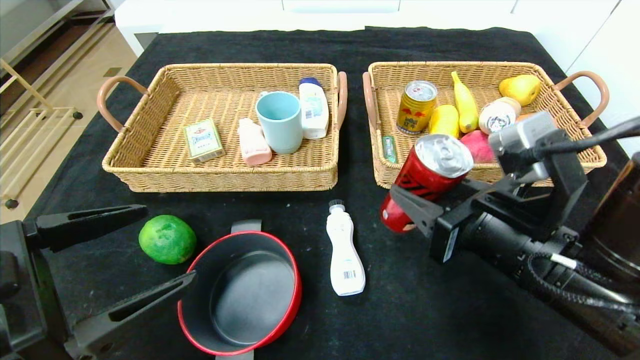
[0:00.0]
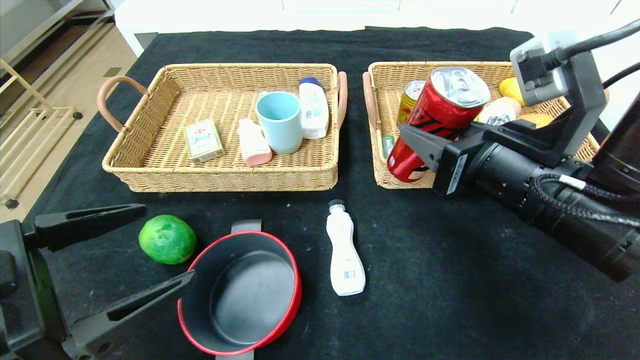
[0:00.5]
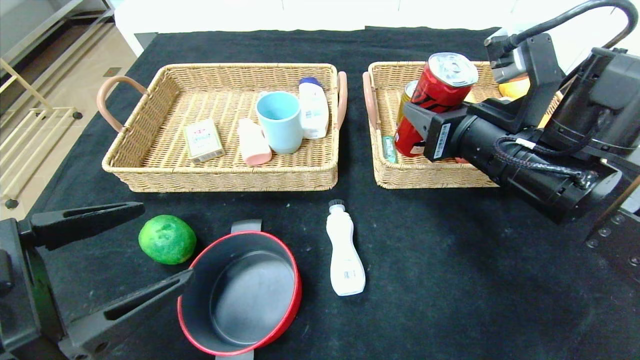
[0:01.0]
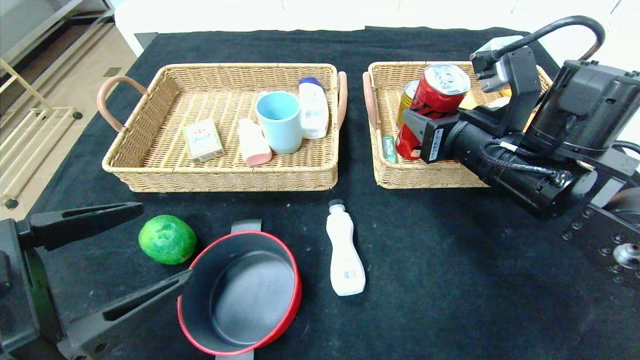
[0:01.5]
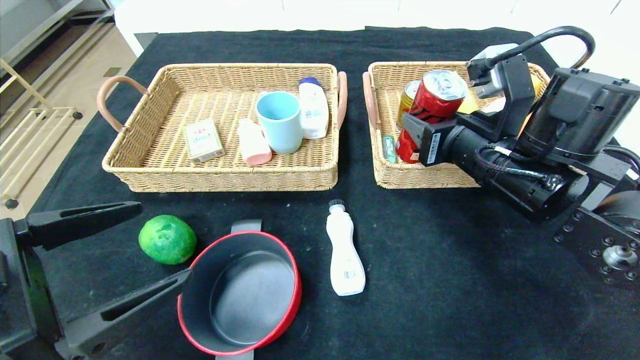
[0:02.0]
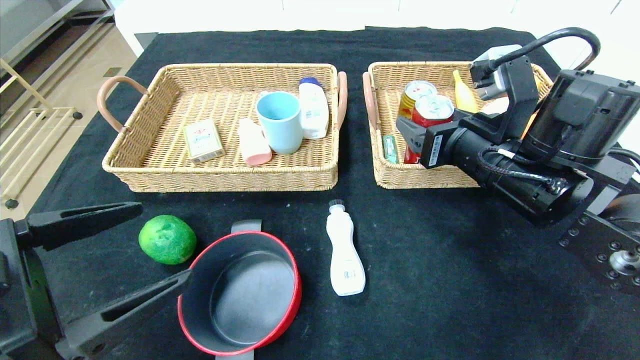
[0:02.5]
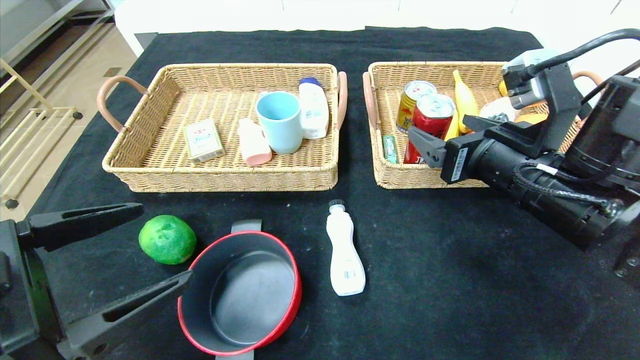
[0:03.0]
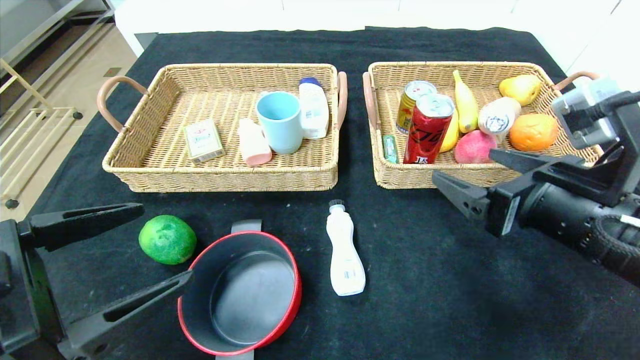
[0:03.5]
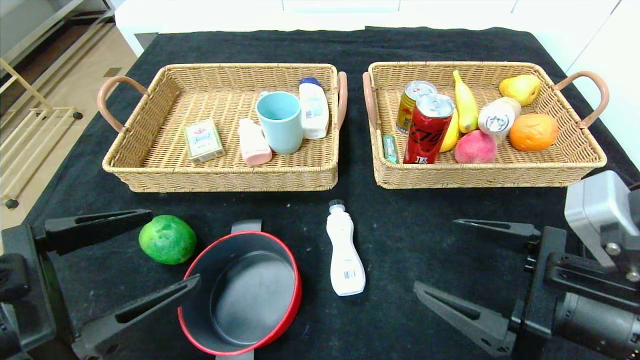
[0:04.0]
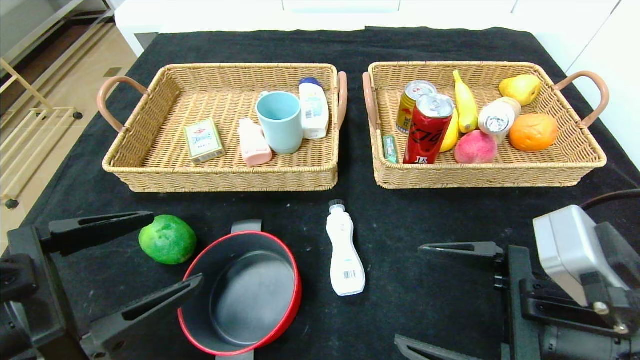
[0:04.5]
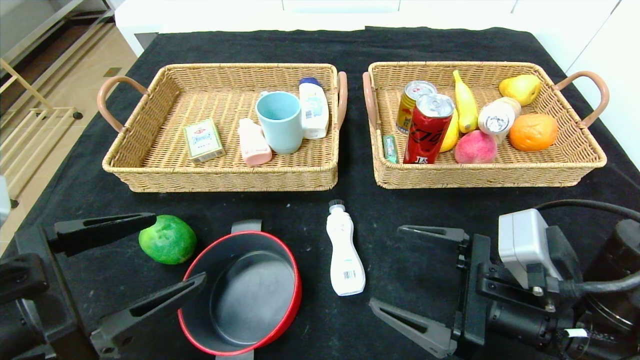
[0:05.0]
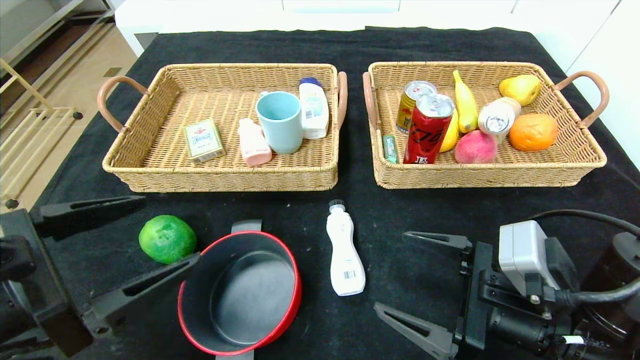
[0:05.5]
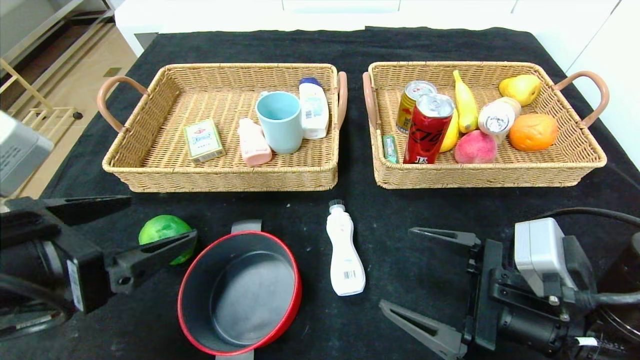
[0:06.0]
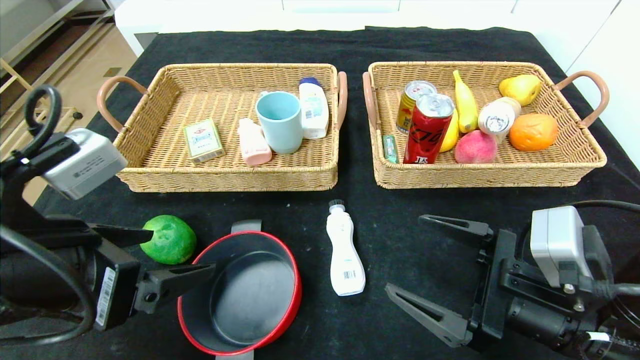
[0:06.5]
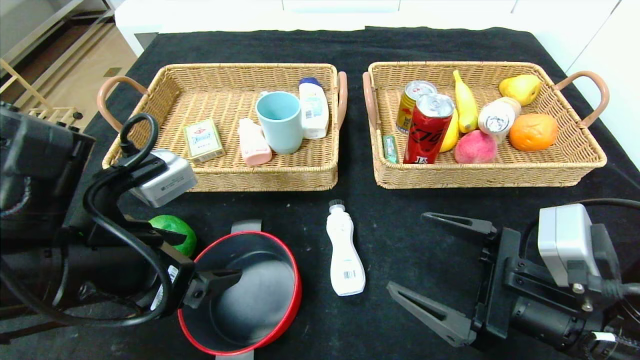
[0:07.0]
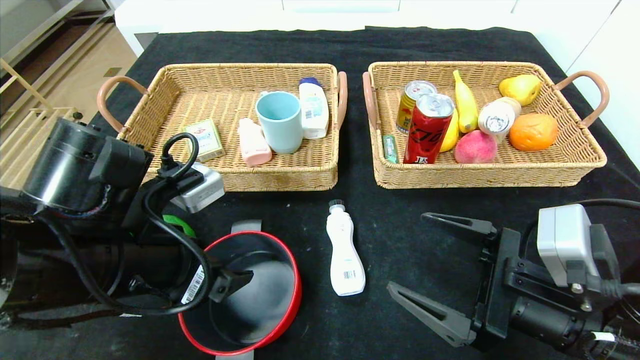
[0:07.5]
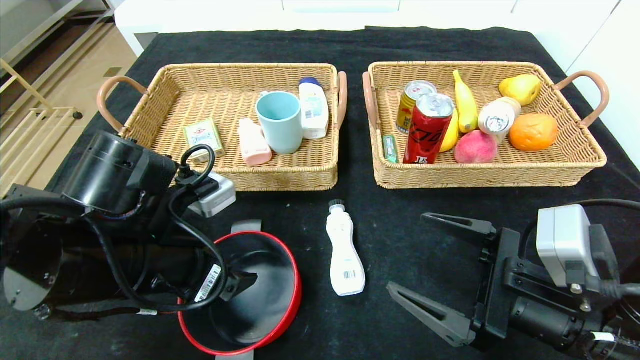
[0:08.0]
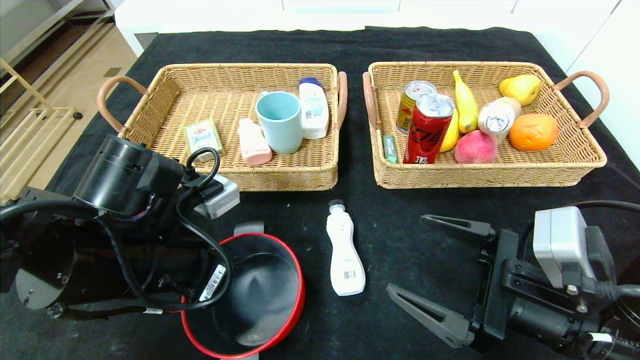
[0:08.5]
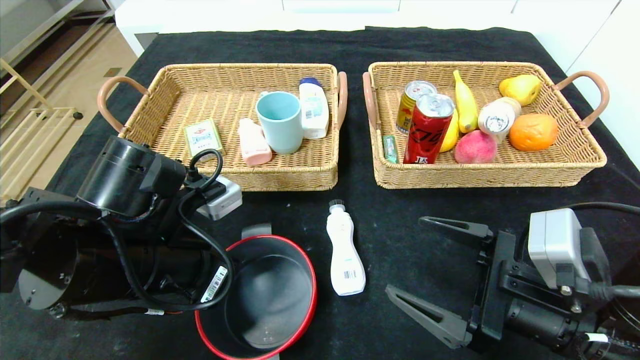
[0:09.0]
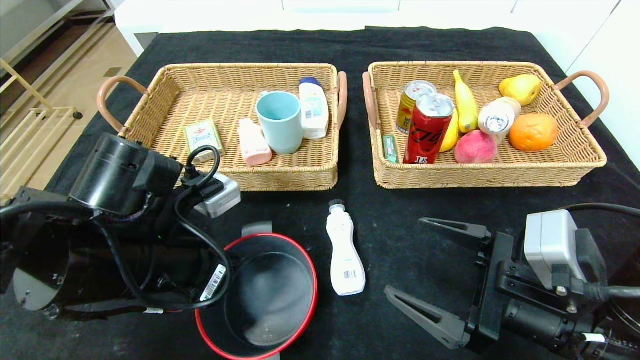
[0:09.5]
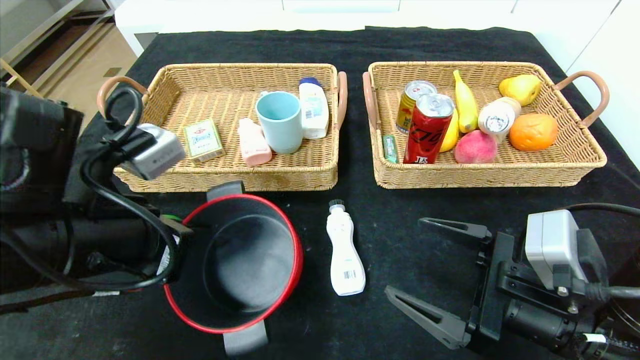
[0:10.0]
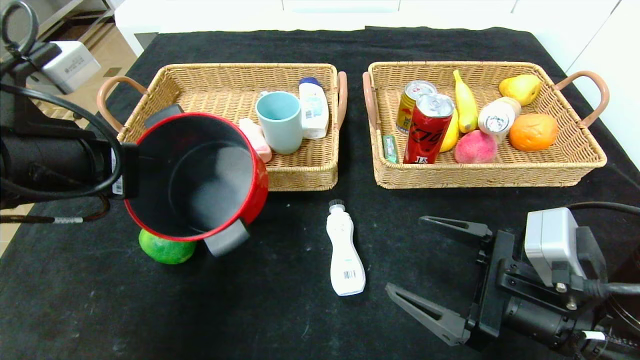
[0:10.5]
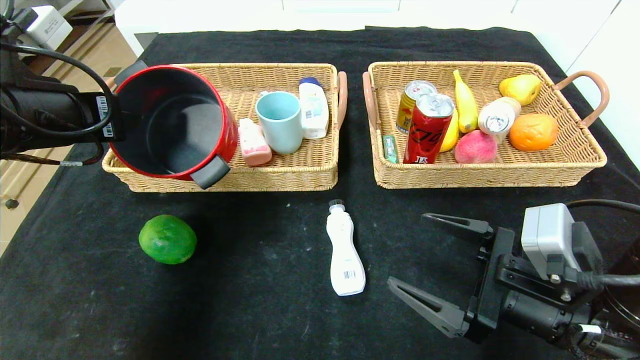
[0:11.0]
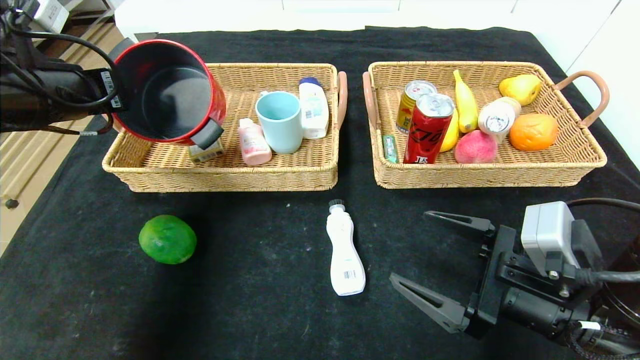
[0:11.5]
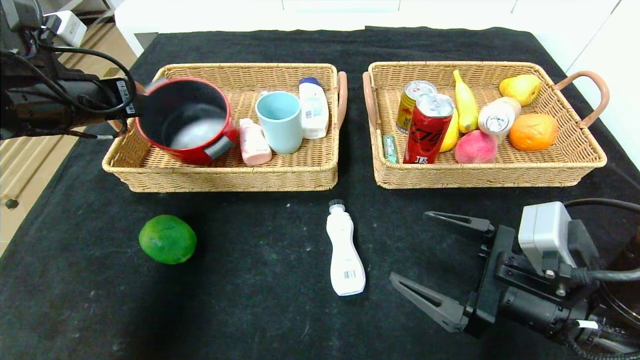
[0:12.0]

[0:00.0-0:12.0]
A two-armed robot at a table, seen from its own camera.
Step, 0:00.0 to 0:02.0: Grasp the canned cola and put it in the right basket.
0:00.0 to 0:02.0: The right gripper heads forward, covering roughly 10 cm.
0:02.0 to 0:04.0: The right gripper moves backward, approximately 15 cm, and opens up.
0:04.0 to 0:06.0: The right gripper moves some 5 cm.
0:06.0 to 0:08.0: The left gripper shifts about 10 cm forward and to the right.
0:08.0 to 0:10.0: The left gripper shifts by some 5 cm, and closes its fingers.
0:10.0 to 0:12.0: The left gripper shifts some 20 cm forward, to the left and upward.

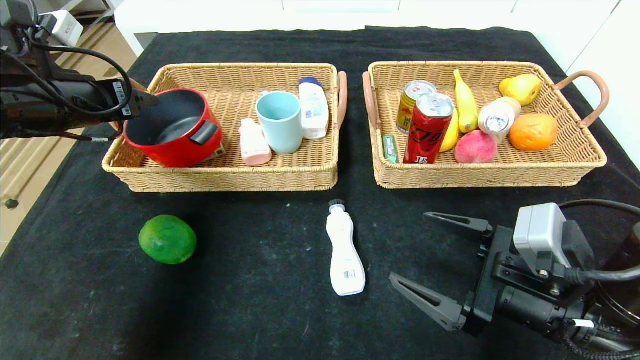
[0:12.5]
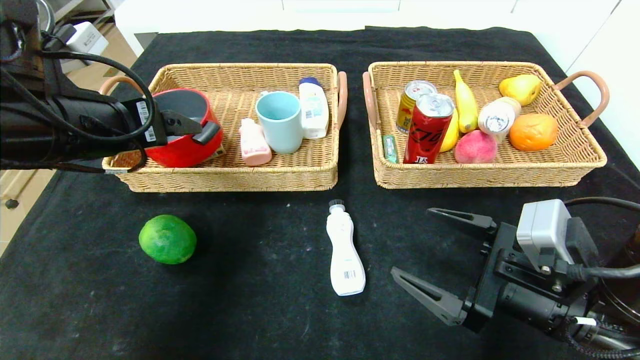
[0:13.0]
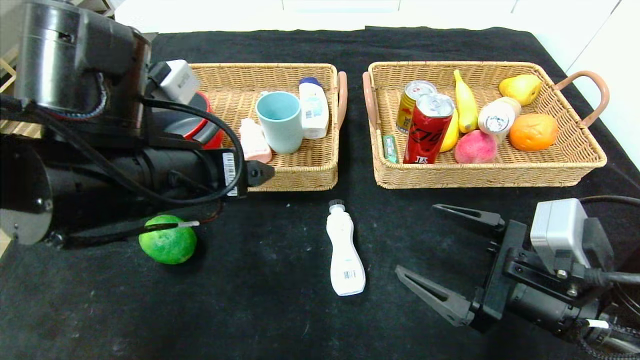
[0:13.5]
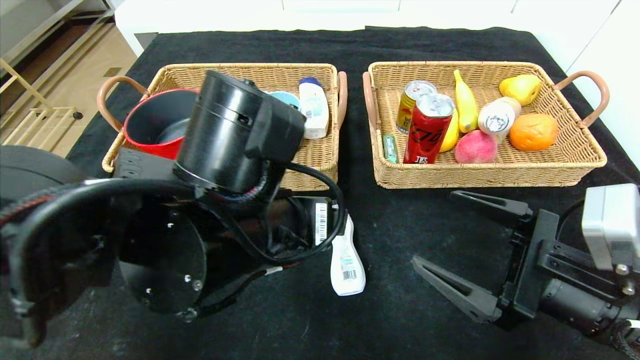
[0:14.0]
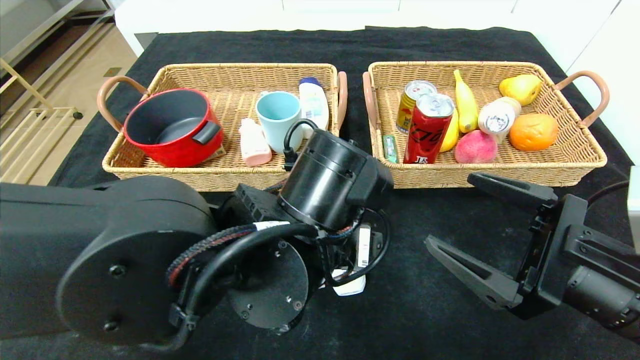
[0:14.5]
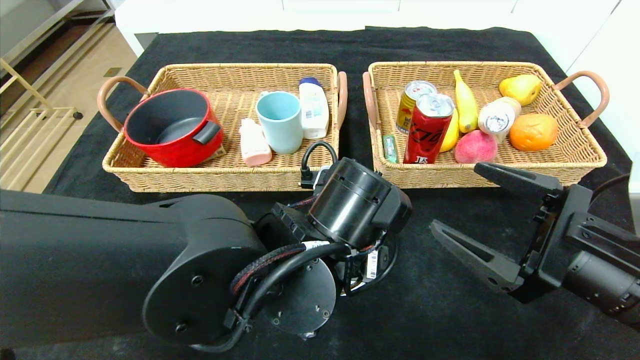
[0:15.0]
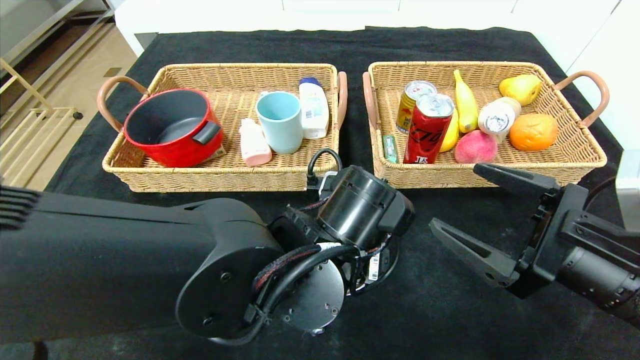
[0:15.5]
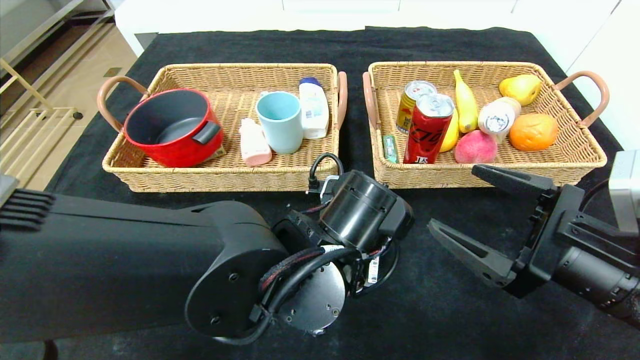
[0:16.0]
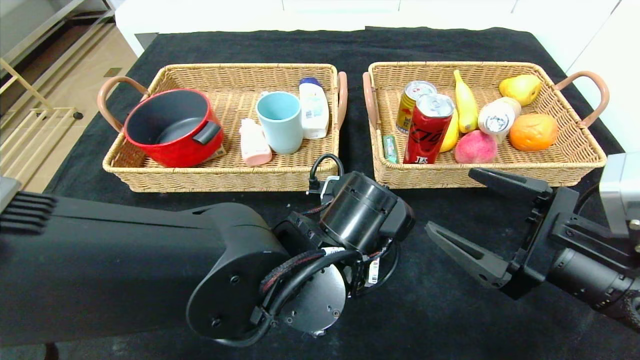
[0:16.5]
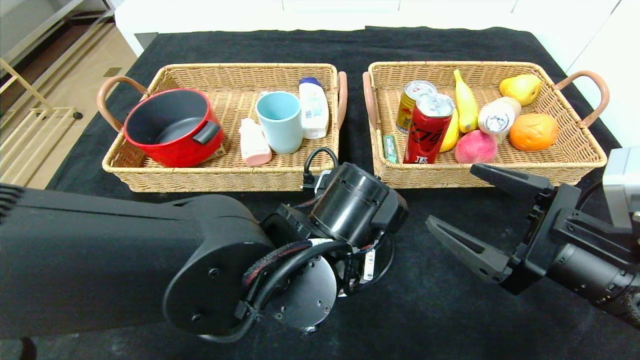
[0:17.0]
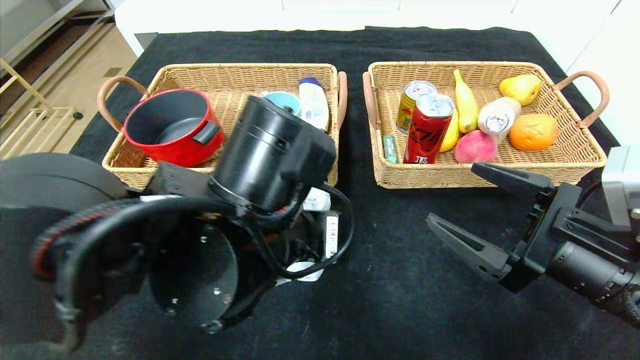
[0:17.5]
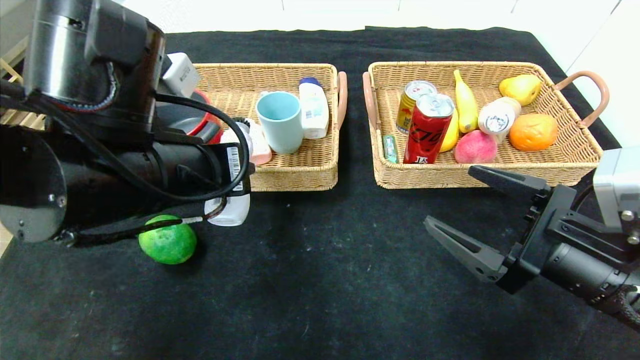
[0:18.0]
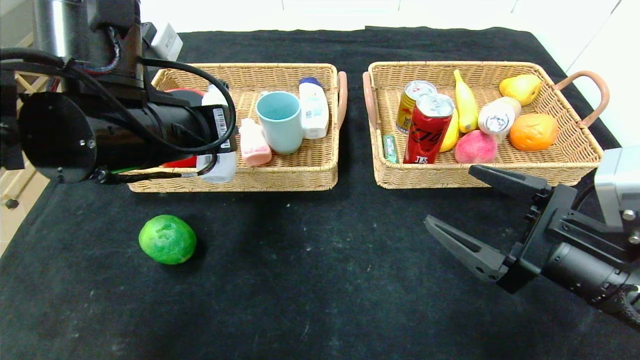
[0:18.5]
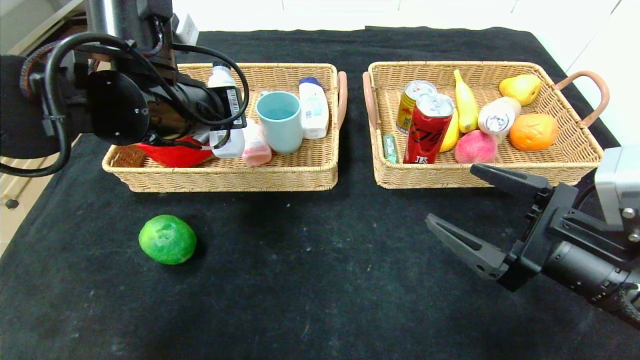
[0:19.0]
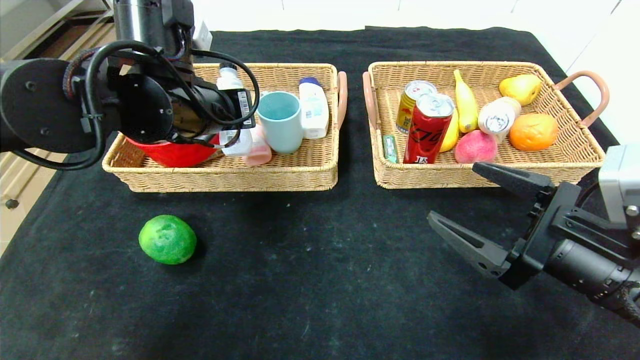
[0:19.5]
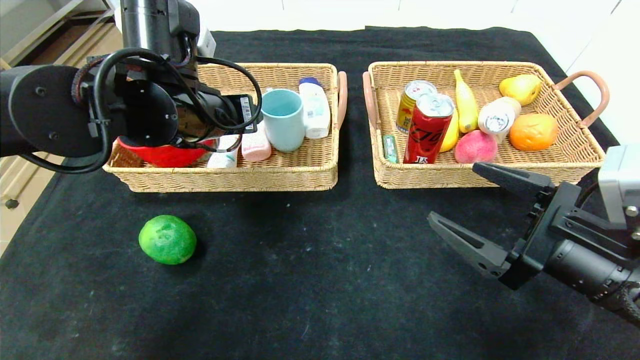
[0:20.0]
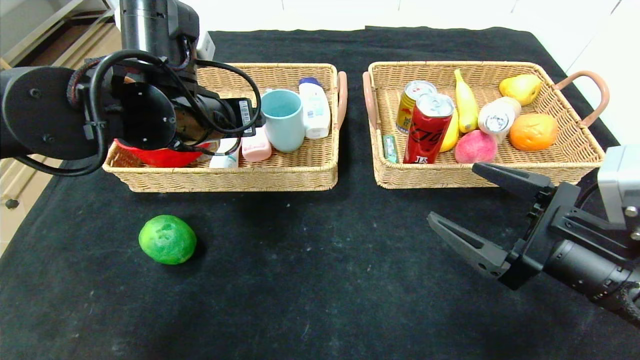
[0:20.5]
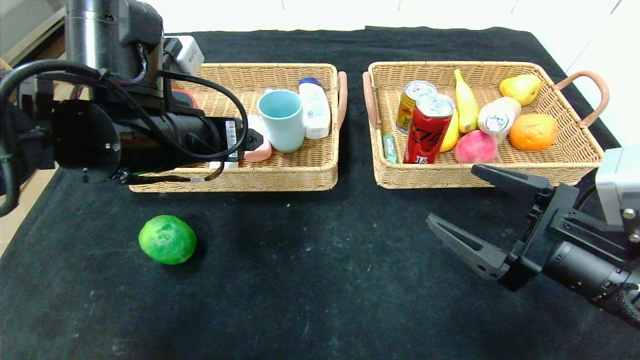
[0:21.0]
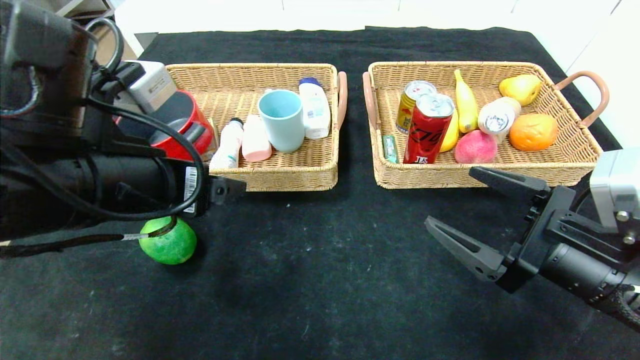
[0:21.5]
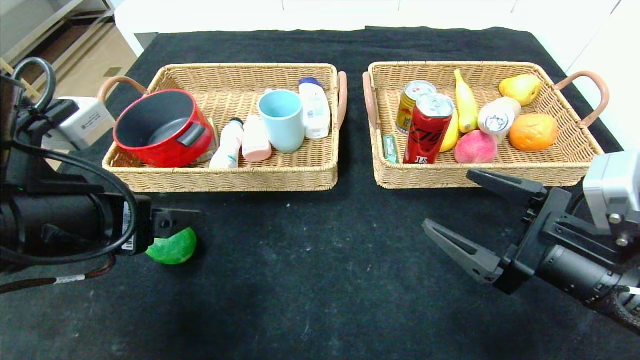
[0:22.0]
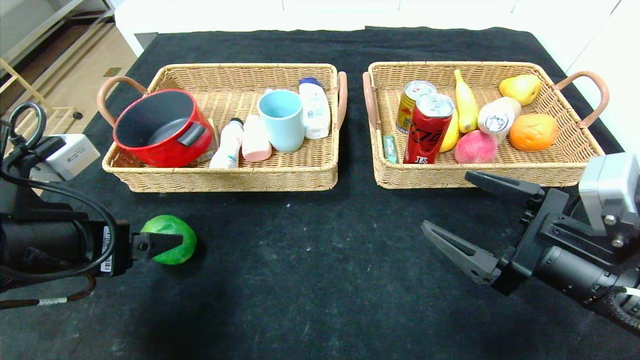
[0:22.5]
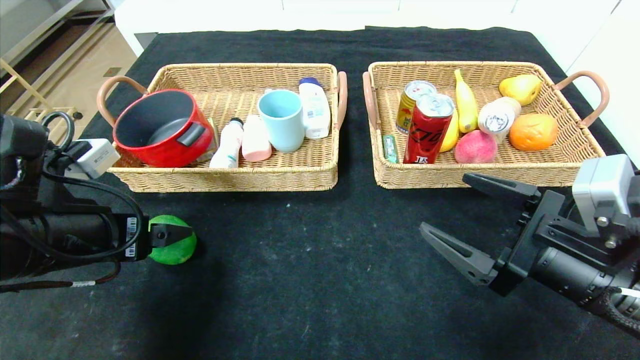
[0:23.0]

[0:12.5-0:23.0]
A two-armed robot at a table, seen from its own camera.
Step, 0:12.5 to 0:19.5: Grasp the washing liquid and put it in the left basket.
0:12.5 to 0:14.5: The left gripper heads to the right, covering about 30 cm, while the right gripper shifts by approximately 5 cm.
0:14.5 to 0:16.5: The left gripper closes.
0:16.5 to 0:19.0: The left gripper shifts approximately 25 cm to the left, upward and forward.
0:19.0 to 0:21.0: The left gripper opens its fingers.
0:21.0 to 0:23.0: The left gripper is displaced to the left, downward and backward by approximately 15 cm.
